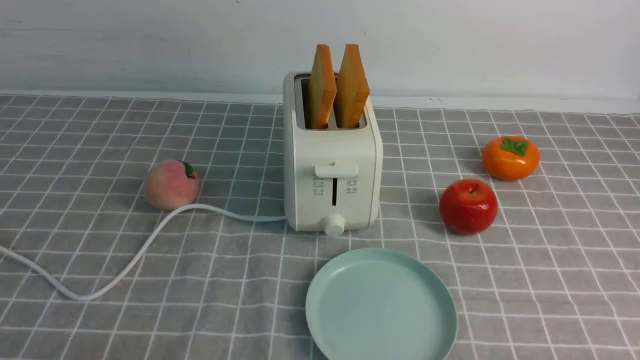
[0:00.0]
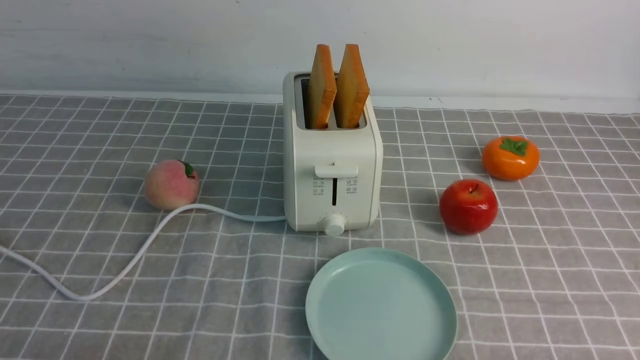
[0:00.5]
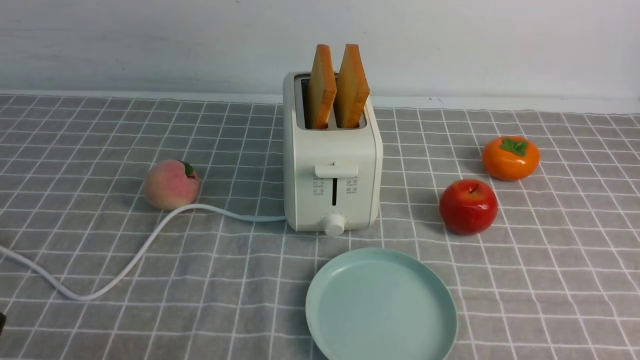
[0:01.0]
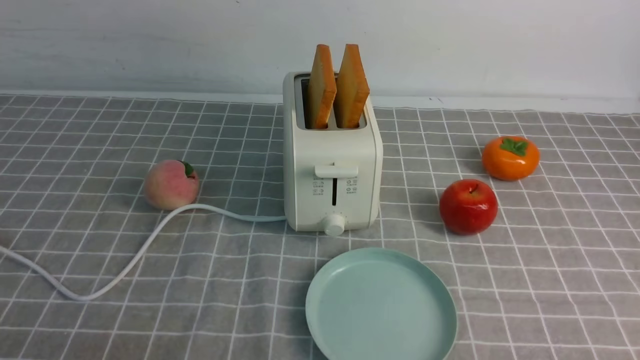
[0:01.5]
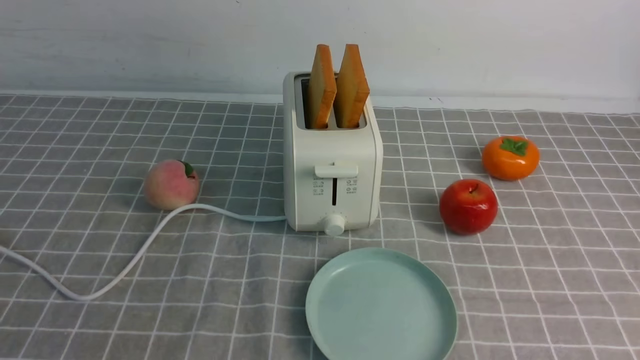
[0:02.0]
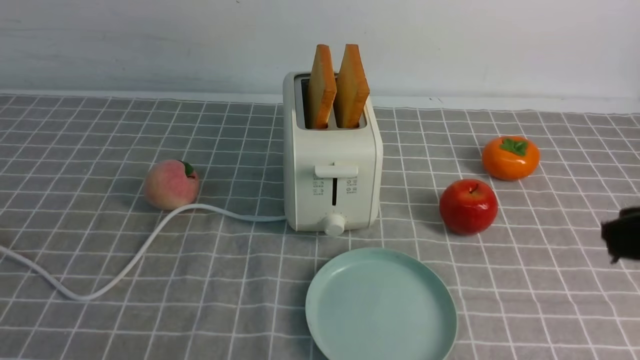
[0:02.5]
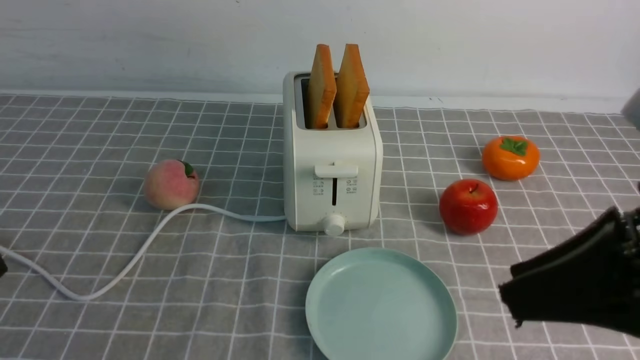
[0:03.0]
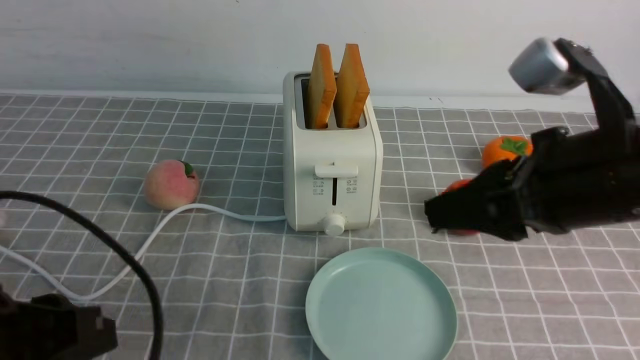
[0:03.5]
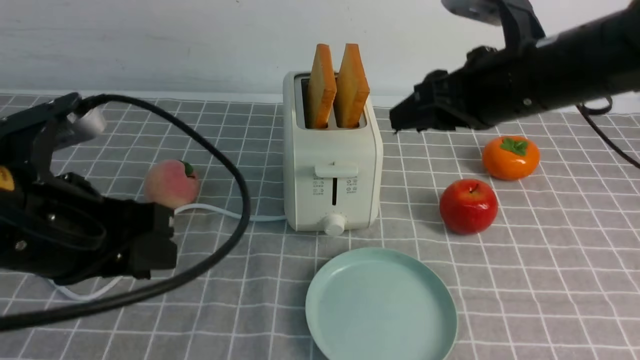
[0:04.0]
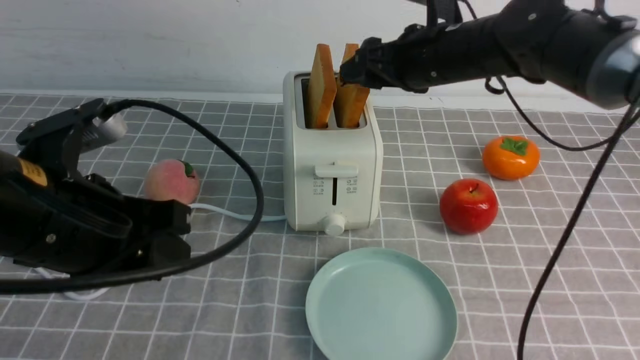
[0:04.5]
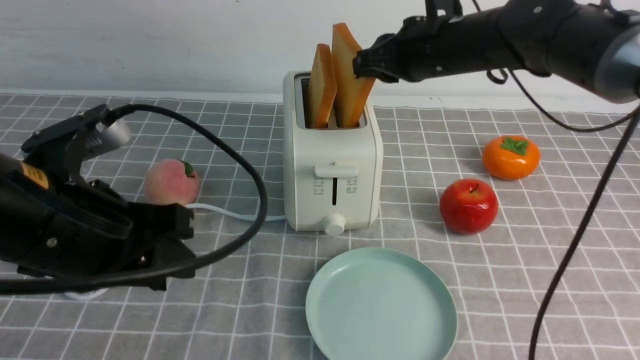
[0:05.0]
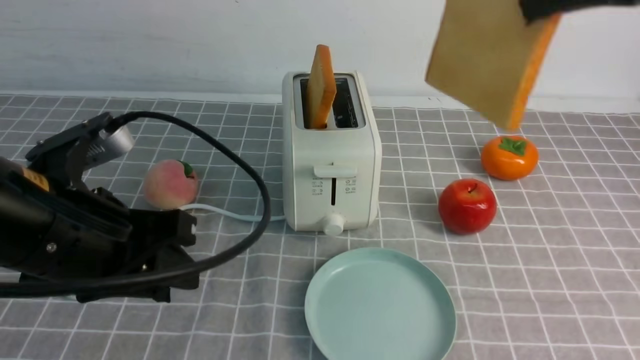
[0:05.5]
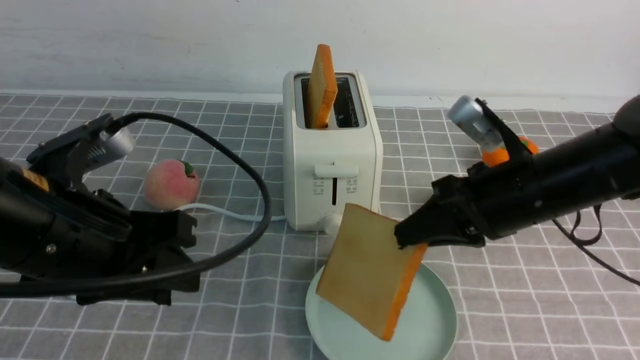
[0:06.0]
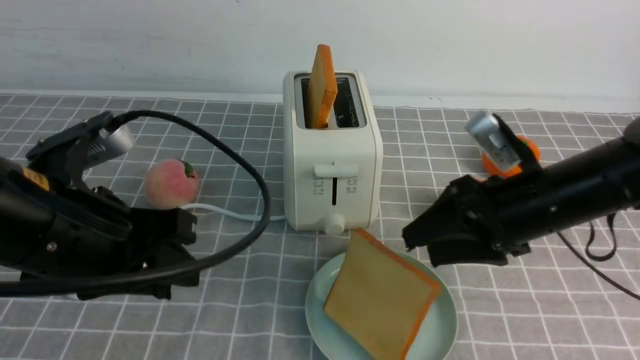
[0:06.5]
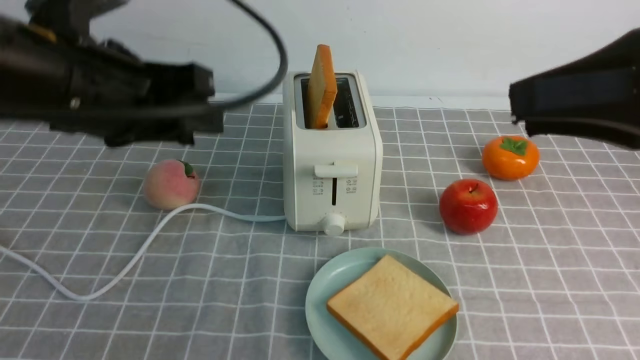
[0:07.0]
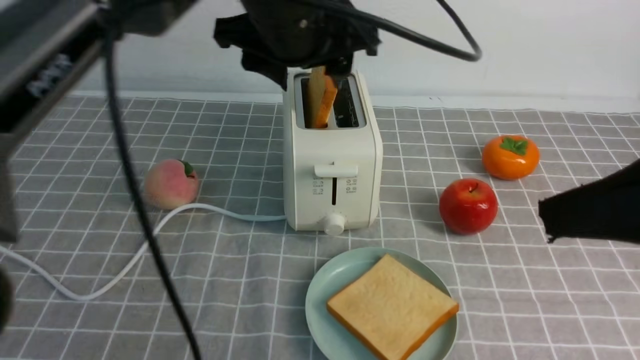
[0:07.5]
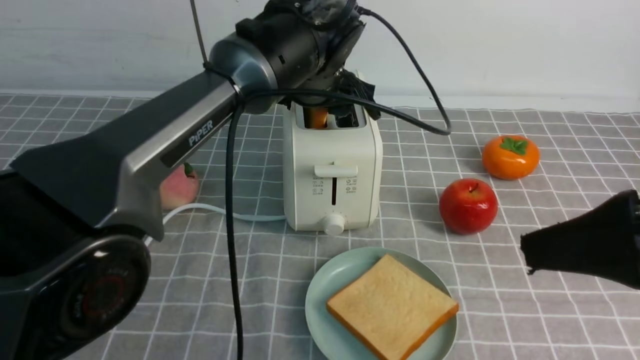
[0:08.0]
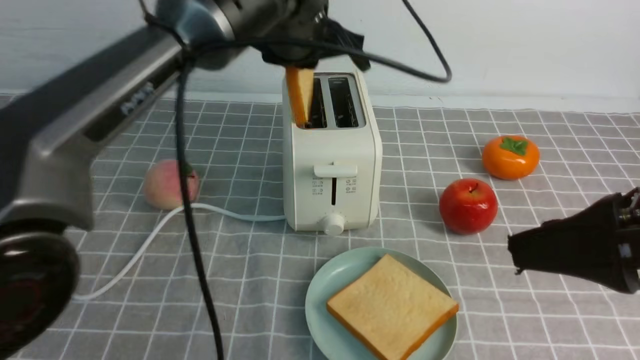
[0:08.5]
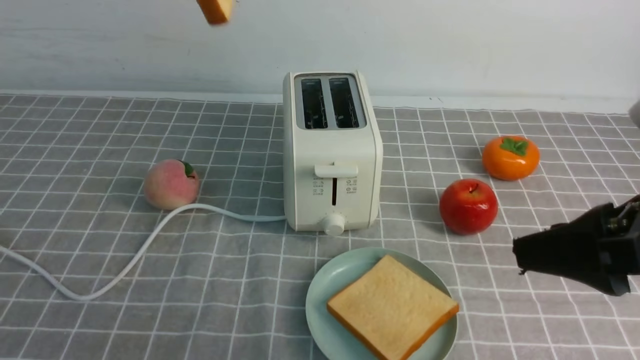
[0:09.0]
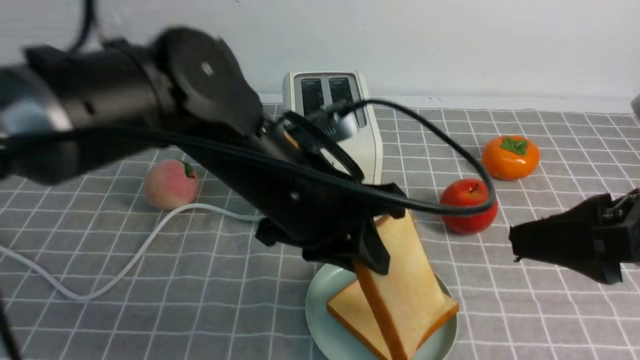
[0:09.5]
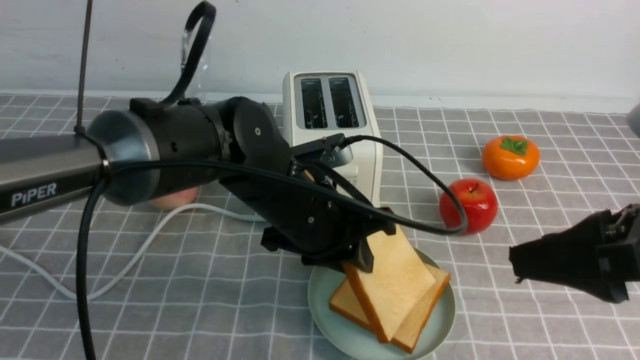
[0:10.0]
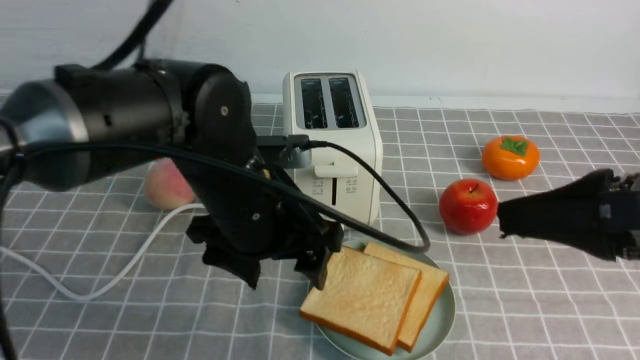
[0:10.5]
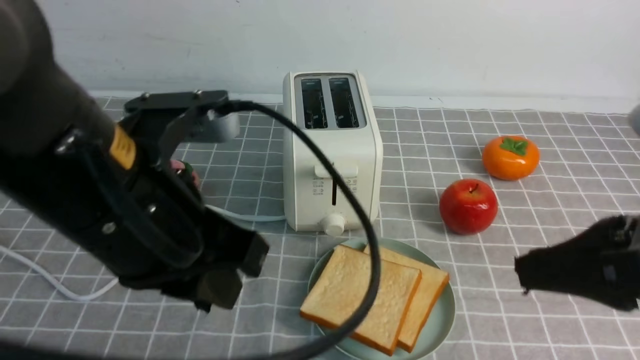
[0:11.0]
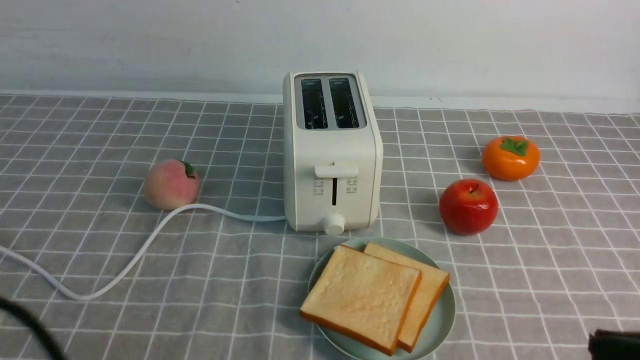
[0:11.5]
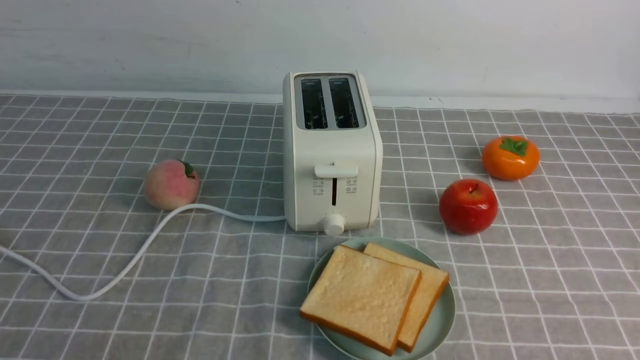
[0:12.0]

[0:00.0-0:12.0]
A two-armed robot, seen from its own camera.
Task of the whole recording: take toasted bread from bread machine on grey coffee table place on plate.
Step, 0:00.0 to 0:05.0: use the right arm to take out a slice of bread.
Step, 0:05.5 to 0:06.5: use the right arm to put a slice of bread into the plate.
Step, 0:07.0 to 0:08.5: use the left arm to take out a slice of bread.
Step, 0:09.0 to 0:10.0: use the left arm to put a slice of bread into the empty plate.
0:02.0 to 0:04.0: The left gripper shifts roughly 20 cm forward and to the right, while the right gripper heads forward, covering approximately 30 cm.
0:04.0 to 0:06.0: The right gripper swings up and down, some 15 cm each way, with 2 reversals, and closes its fingers.
0:06.0 to 0:08.0: The left gripper moves forward and to the right, about 30 cm. The right gripper shifts some 15 cm backward and upward, and opens up.
0:08.0 to 0:10.0: The left gripper is displaced backward by about 15 cm, and reaches about 20 cm upward, then returns.
0:10.0 to 0:12.0: The left gripper is displaced backward and to the left by some 35 cm, and closes up, while the right gripper travels backward and downward by some 15 cm, and closes its fingers.
